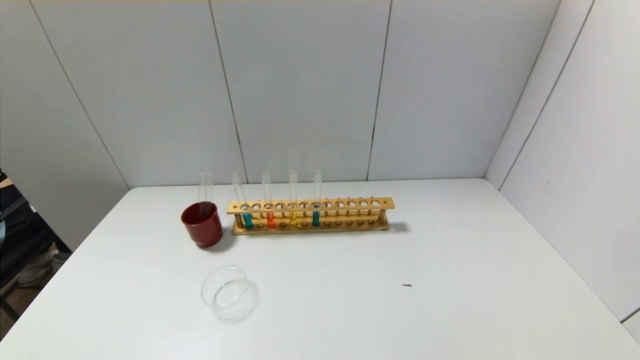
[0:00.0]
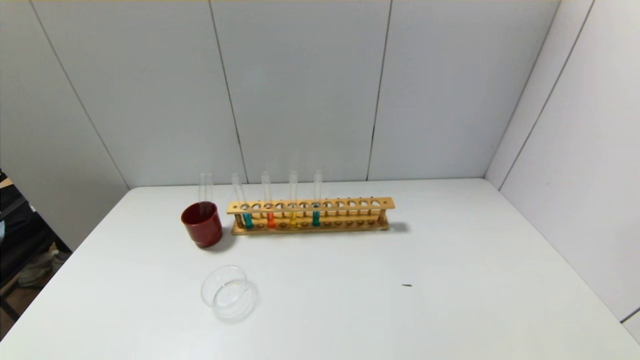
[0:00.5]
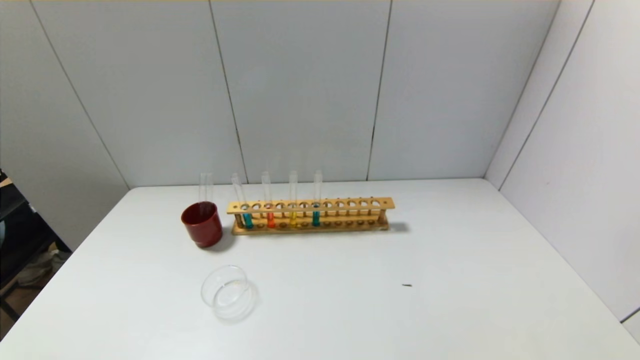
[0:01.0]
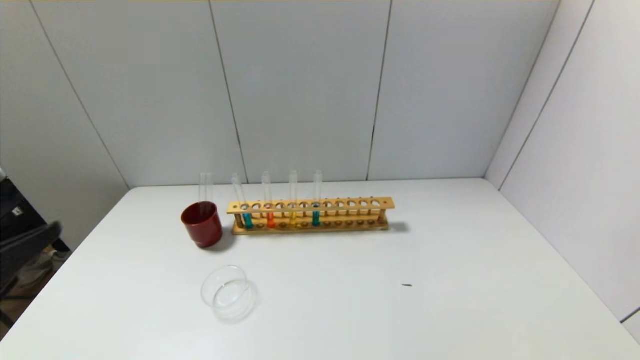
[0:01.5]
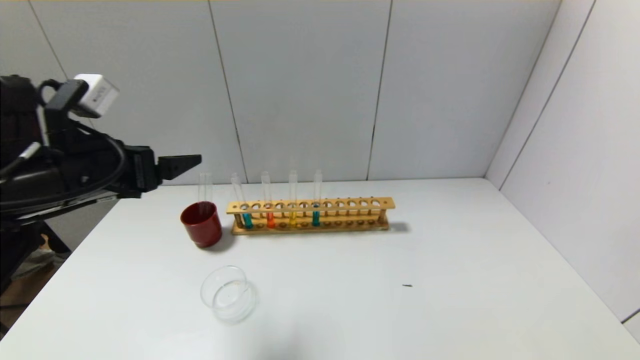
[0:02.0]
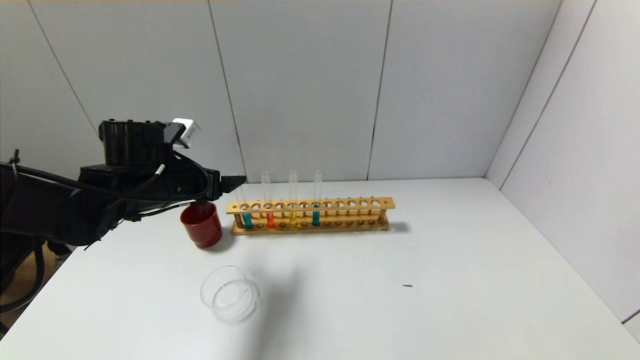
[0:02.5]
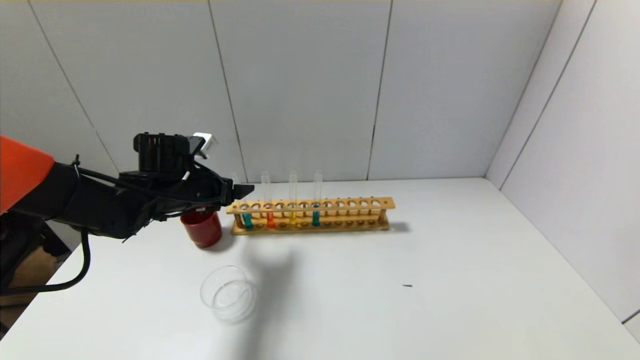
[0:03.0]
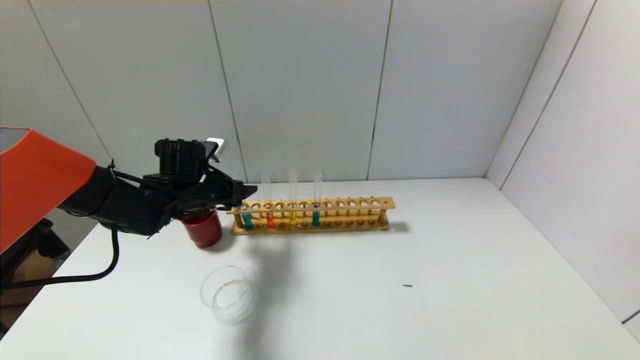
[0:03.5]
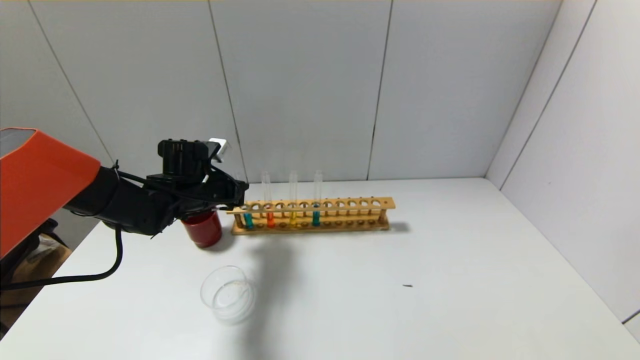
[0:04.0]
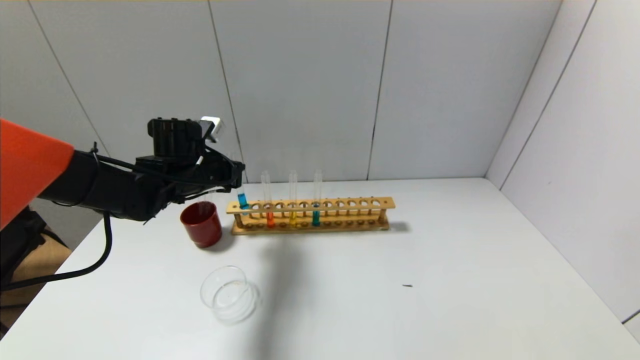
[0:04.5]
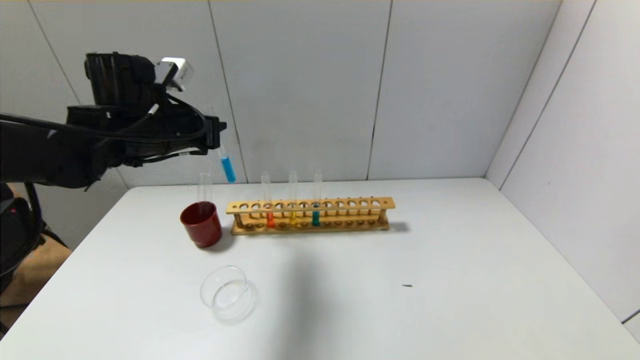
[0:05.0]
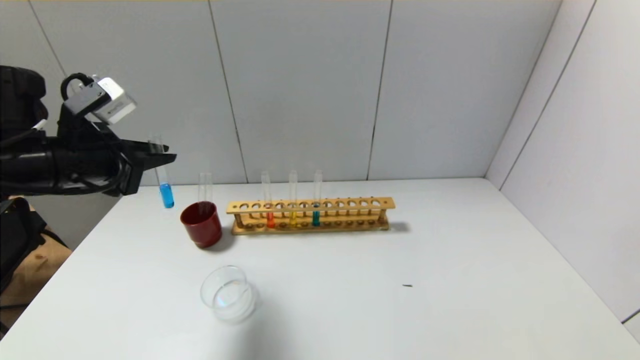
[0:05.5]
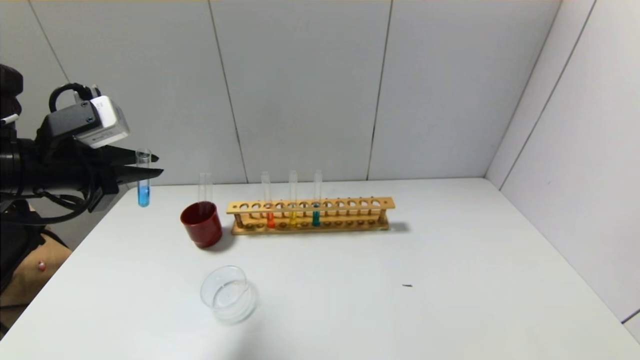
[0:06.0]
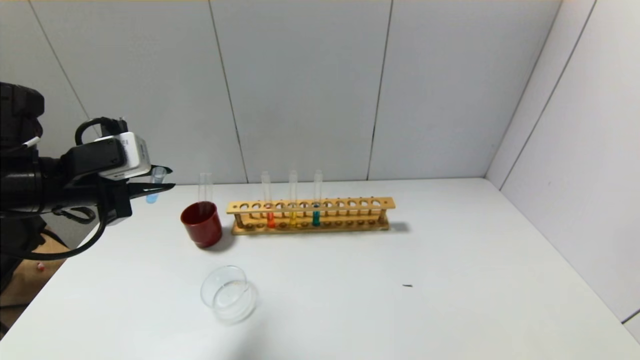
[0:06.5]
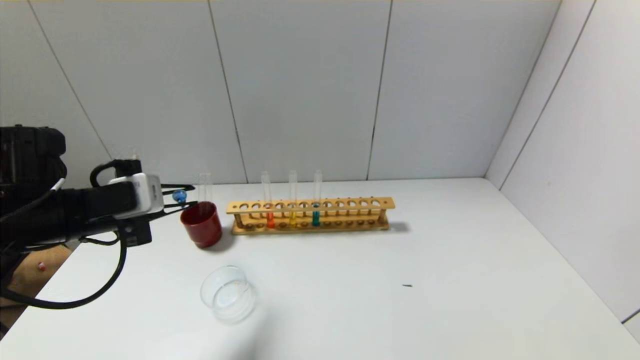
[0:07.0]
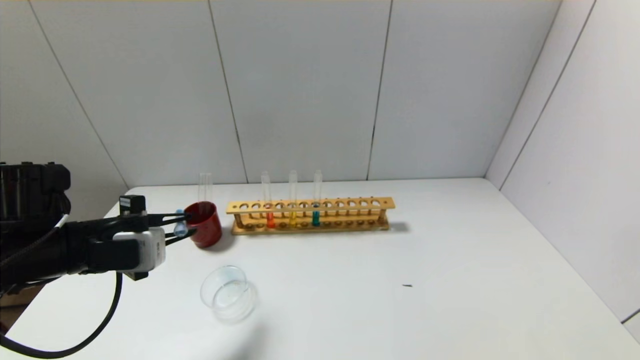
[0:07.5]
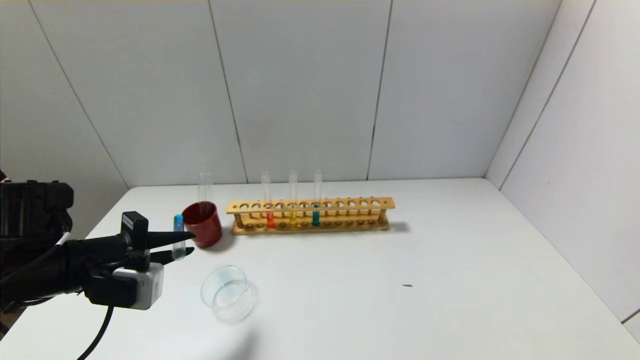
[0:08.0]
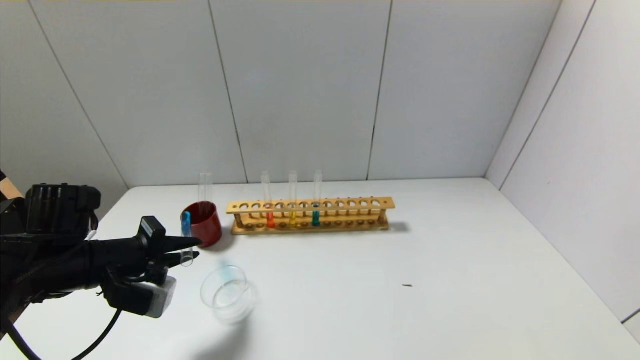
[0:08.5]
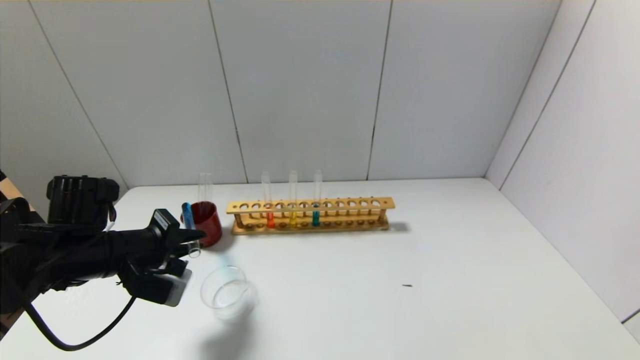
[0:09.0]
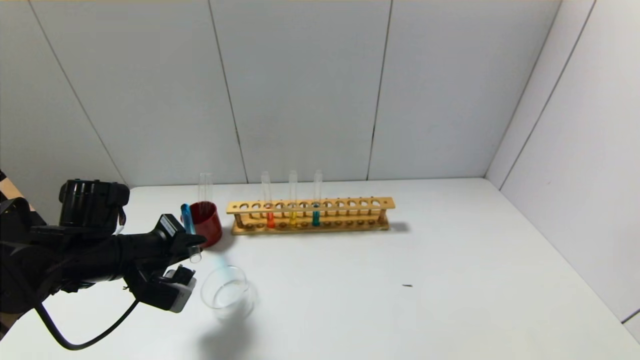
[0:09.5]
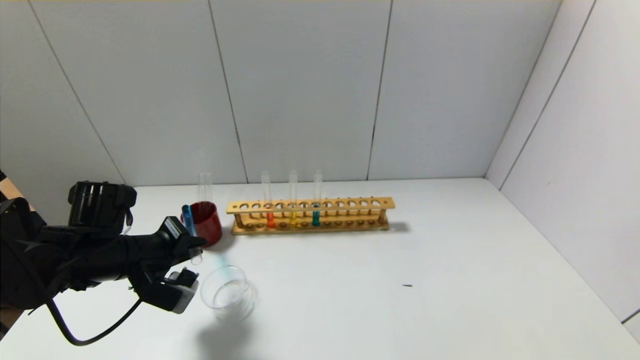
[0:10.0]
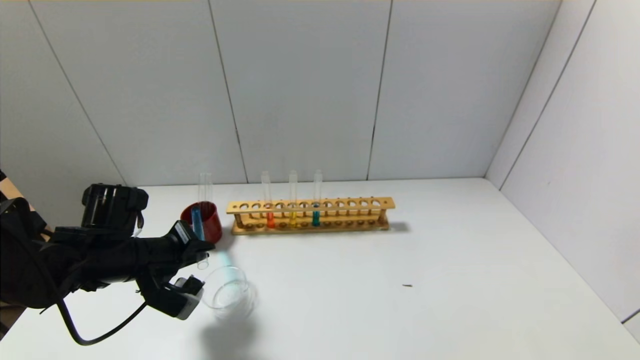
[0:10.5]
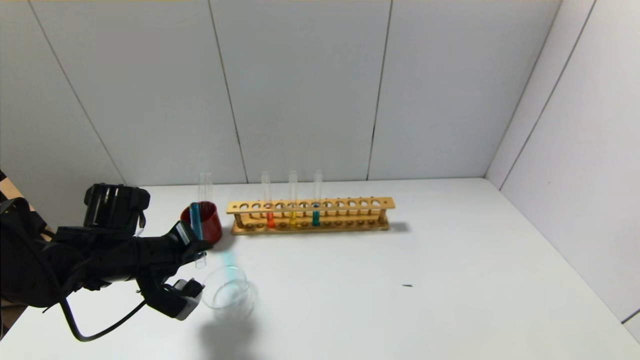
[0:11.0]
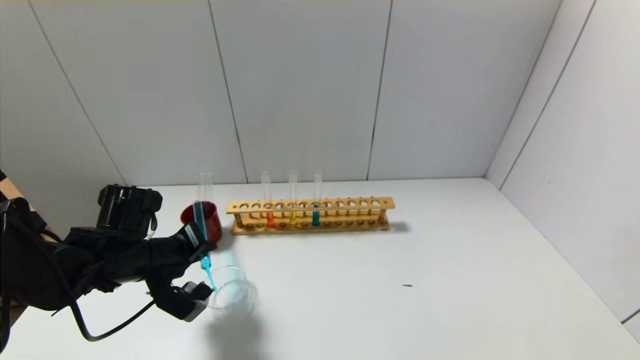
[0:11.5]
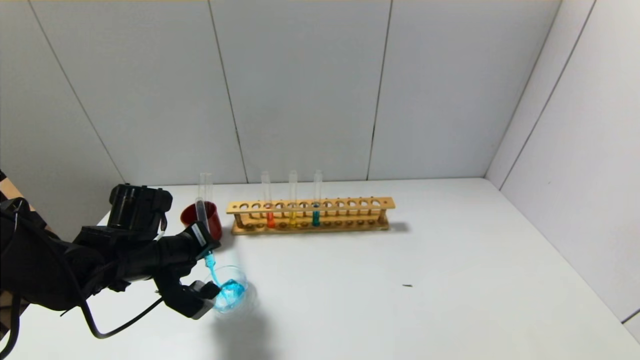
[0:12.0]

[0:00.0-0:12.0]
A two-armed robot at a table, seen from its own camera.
Step, 0:00.0 to 0:03.5: Grasp the blue reagent with the left gripper.
0:00.0 to 0:02.0: The left gripper is displaced forward and upward by approximately 30 cm.
0:02.0 to 0:04.0: The left gripper heads forward and downward, covering about 20 cm, and closes.
0:04.0 to 0:06.0: The left gripper heads backward, upward and to the left, covering about 20 cm.
0:06.0 to 0:08.0: The left gripper goes some 10 cm downward.
0:08.0 to 0:10.0: The left gripper shifts by roughly 5 cm.
0:10.0 to 0:12.0: The grippers move only a little.

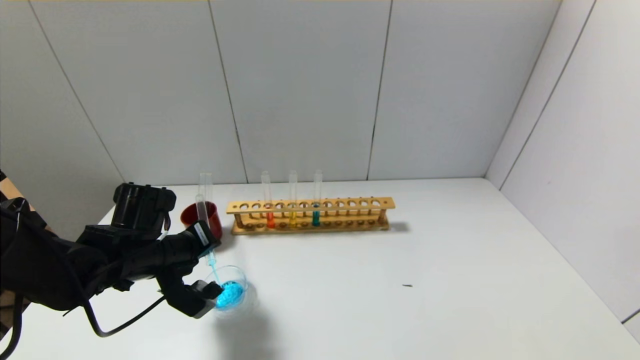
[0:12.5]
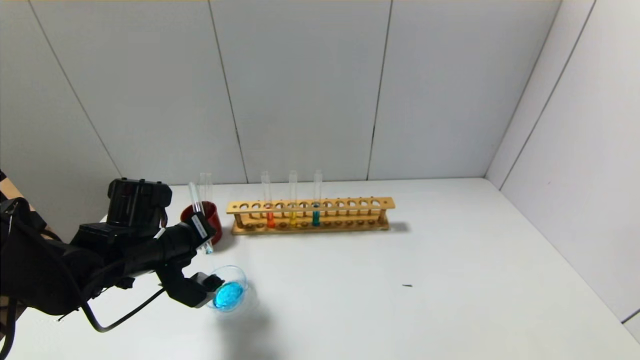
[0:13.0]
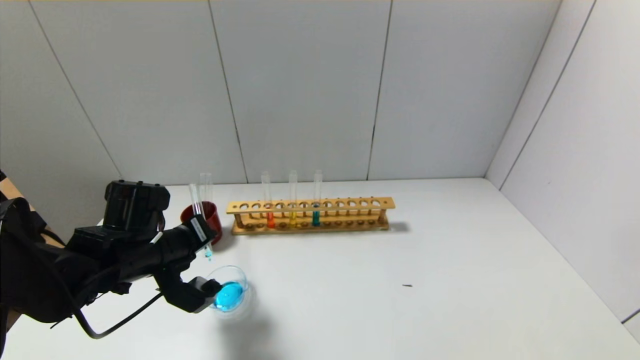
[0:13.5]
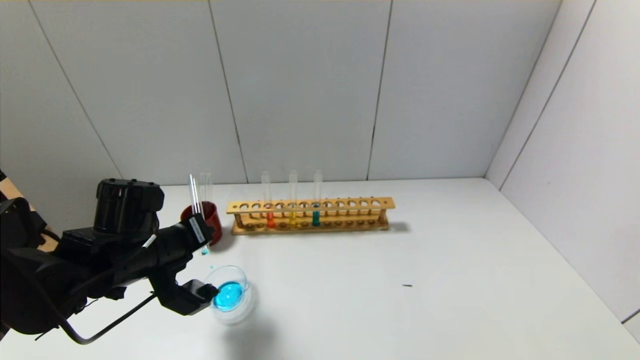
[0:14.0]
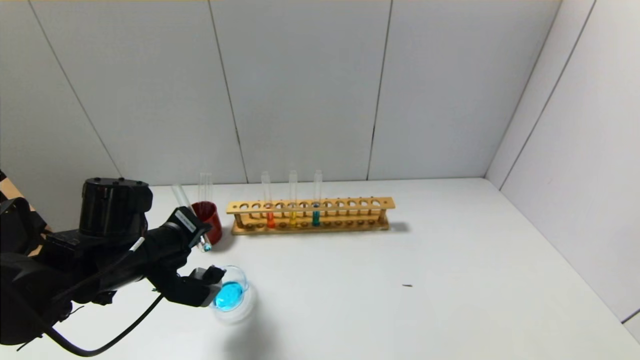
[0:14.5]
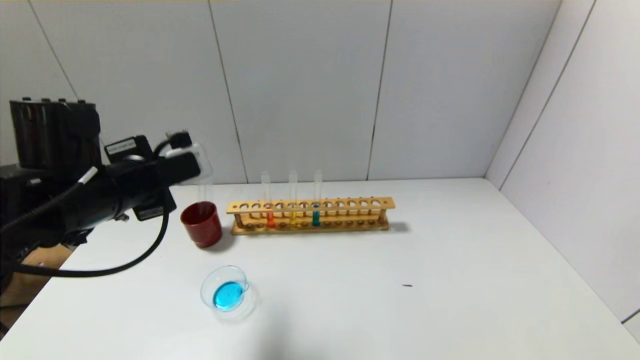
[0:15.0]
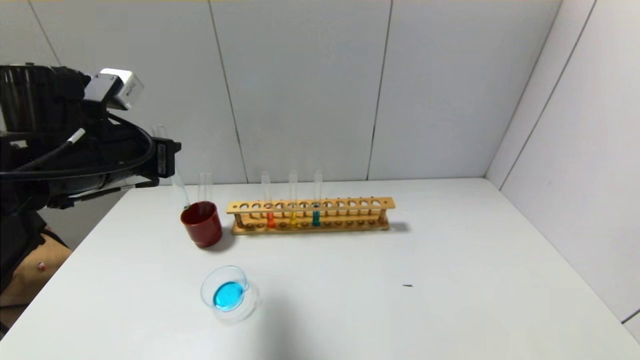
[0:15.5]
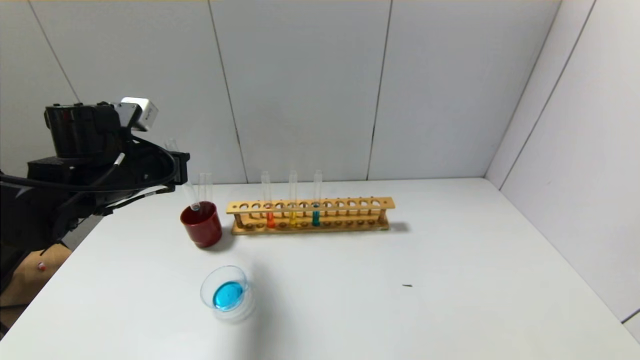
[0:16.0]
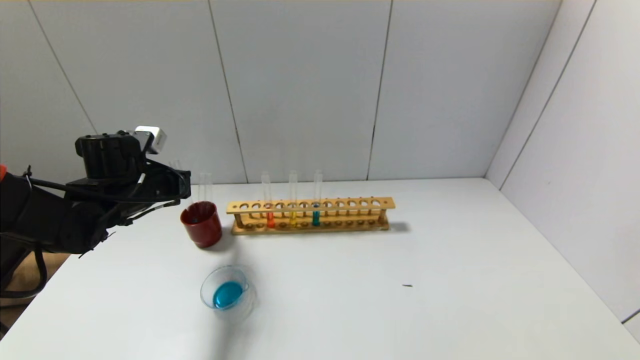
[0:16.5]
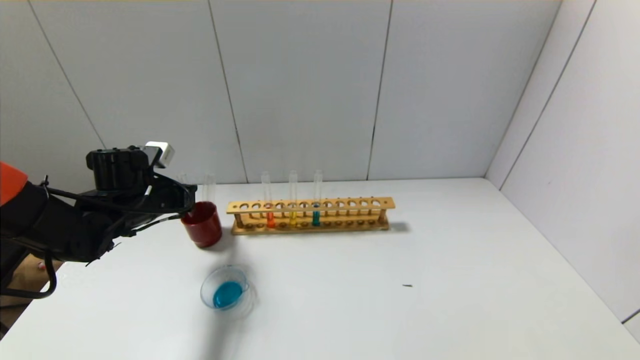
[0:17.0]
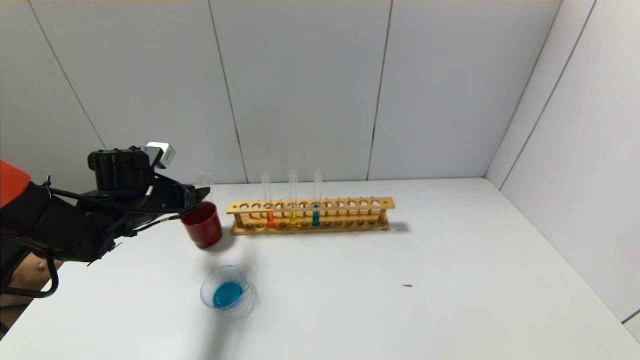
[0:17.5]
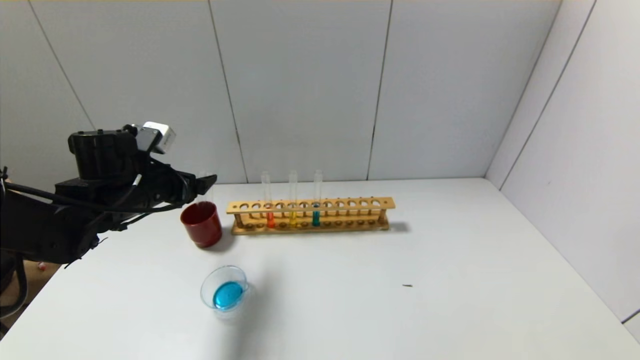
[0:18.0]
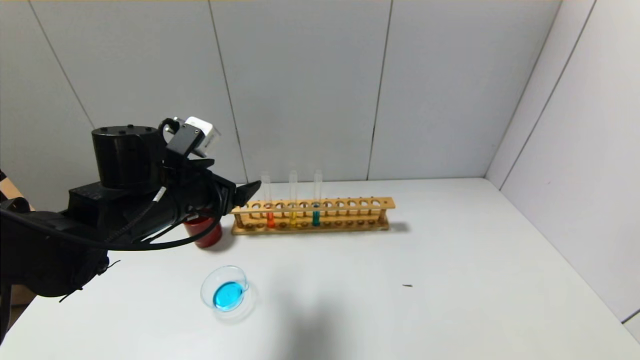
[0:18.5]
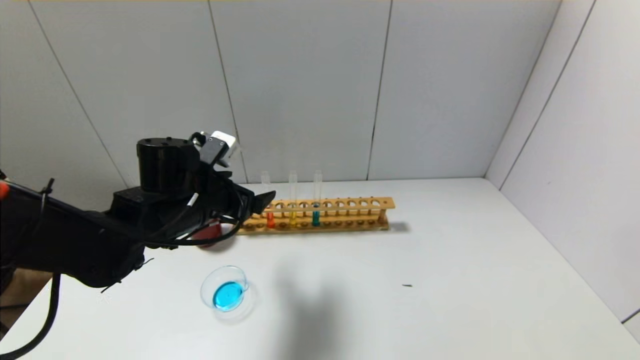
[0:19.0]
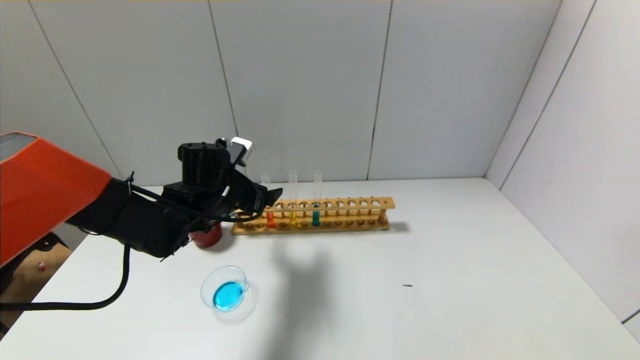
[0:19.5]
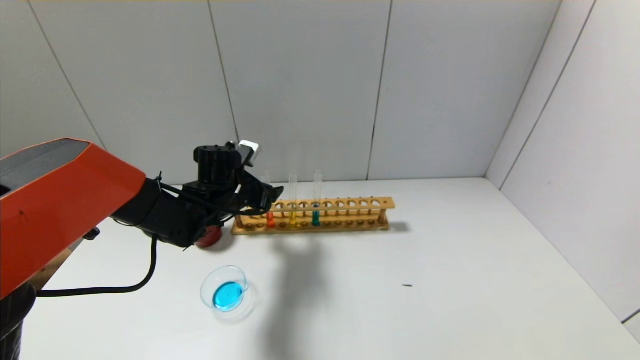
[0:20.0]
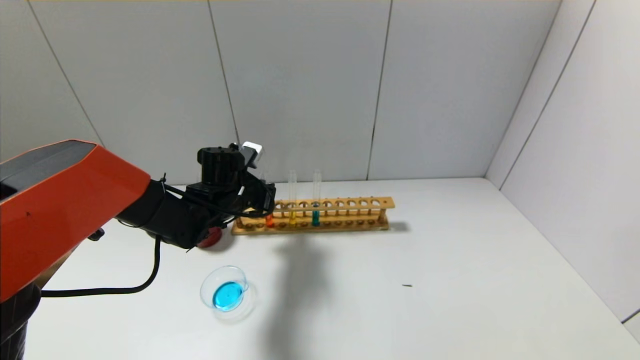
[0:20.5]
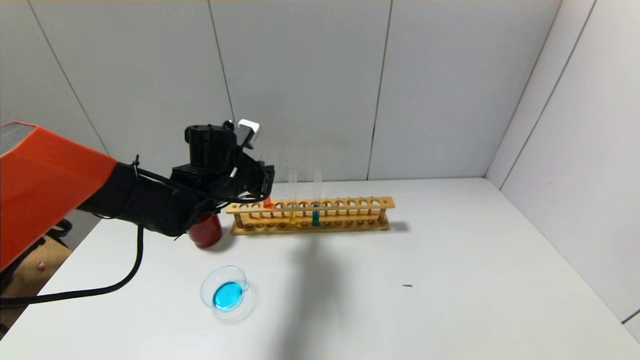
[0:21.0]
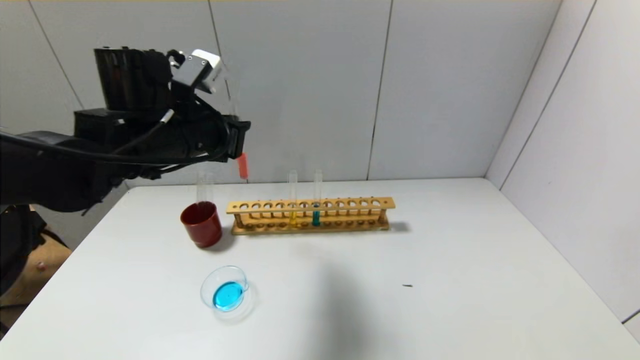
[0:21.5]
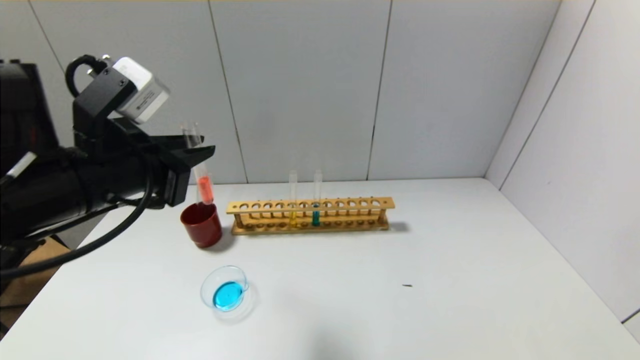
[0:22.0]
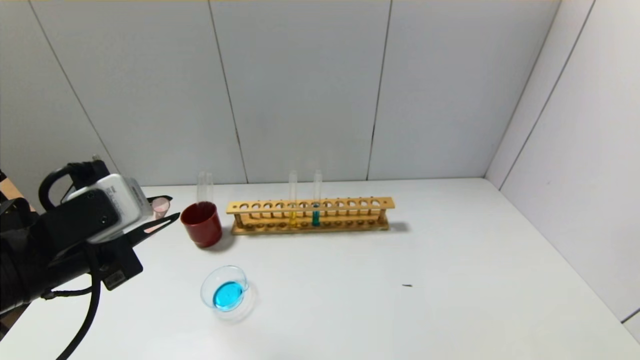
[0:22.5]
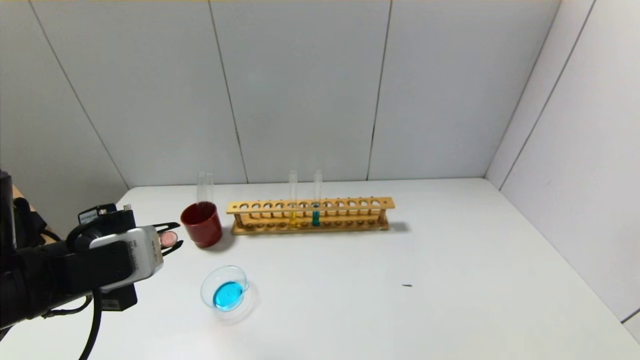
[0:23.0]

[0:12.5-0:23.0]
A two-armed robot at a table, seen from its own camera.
Step, 0:12.5 to 0:14.5: Pour the blue reagent into the graduated cylinder with the left gripper.
Step, 0:15.0 to 0:17.0: Place the test tube into the brown cup with the left gripper.
Step, 0:17.5 to 0:20.5: Grasp the red reagent with the left gripper.
0:12.5 to 0:14.5: The grippers move only a little.
0:14.5 to 0:16.5: The left gripper shifts approximately 10 cm forward and to the left, and moves roughly 10 cm upward and comes back.
0:16.5 to 0:19.0: The left gripper travels to the right by about 10 cm, and opens.
0:19.0 to 0:21.0: The left gripper travels forward by about 5 cm, and closes its fingers.
0:21.0 to 0:23.0: The left gripper goes approximately 25 cm backward and to the left.
